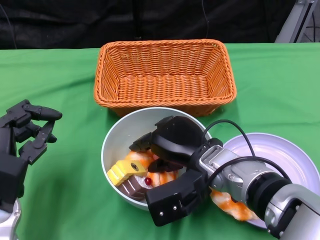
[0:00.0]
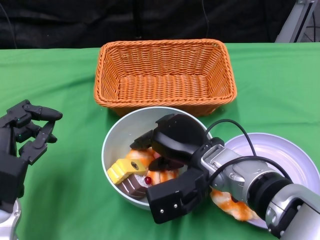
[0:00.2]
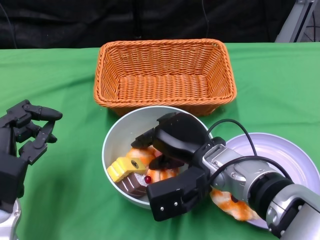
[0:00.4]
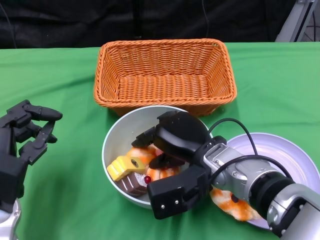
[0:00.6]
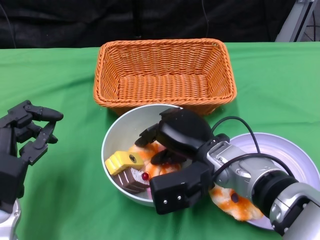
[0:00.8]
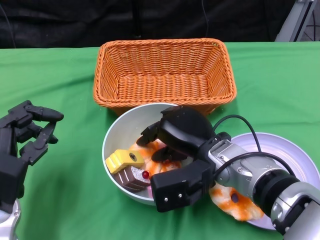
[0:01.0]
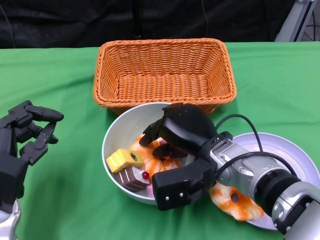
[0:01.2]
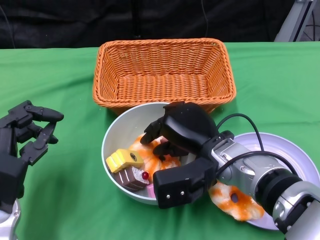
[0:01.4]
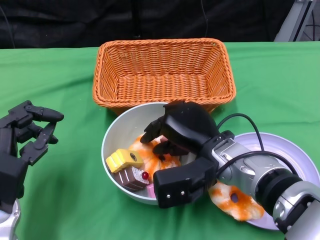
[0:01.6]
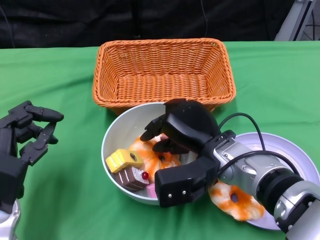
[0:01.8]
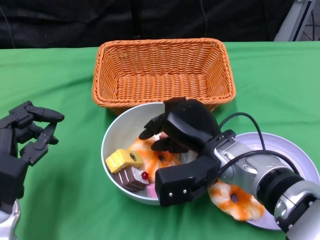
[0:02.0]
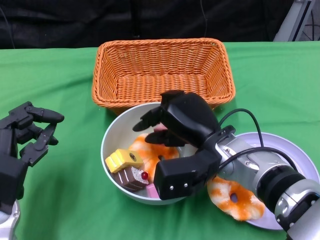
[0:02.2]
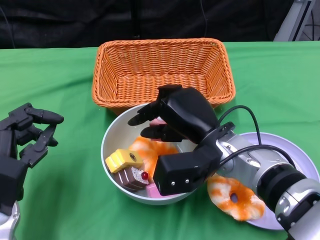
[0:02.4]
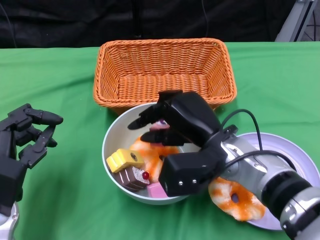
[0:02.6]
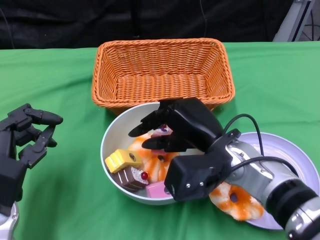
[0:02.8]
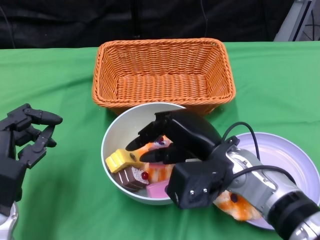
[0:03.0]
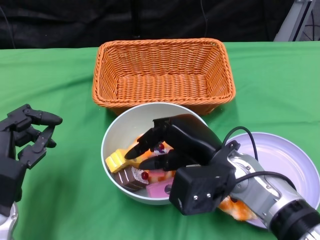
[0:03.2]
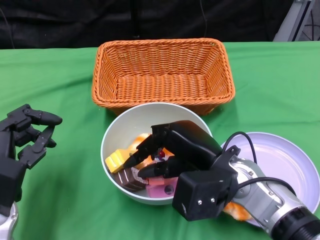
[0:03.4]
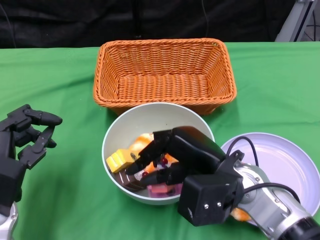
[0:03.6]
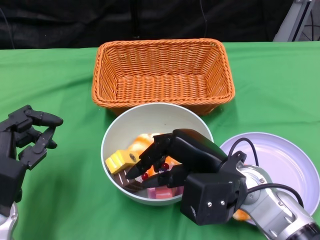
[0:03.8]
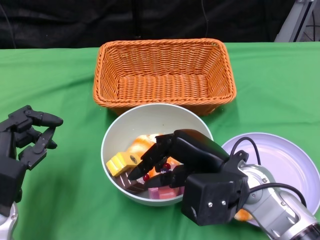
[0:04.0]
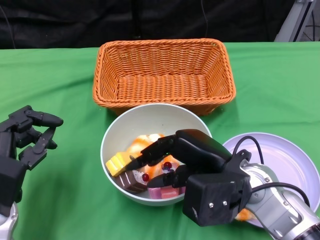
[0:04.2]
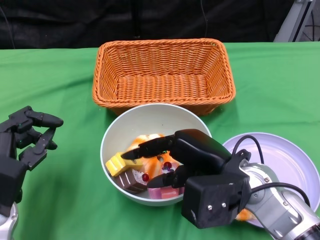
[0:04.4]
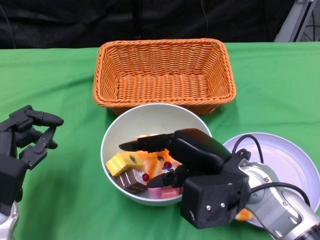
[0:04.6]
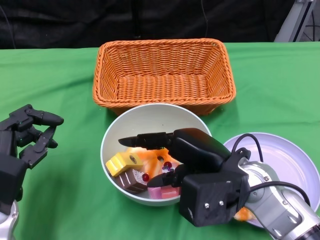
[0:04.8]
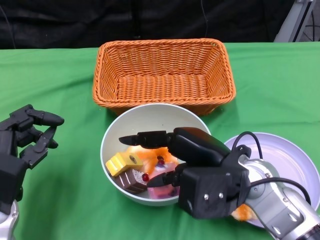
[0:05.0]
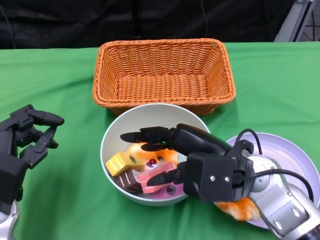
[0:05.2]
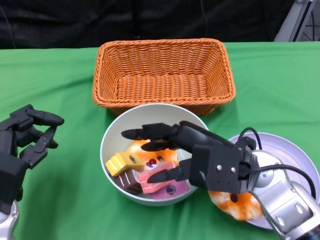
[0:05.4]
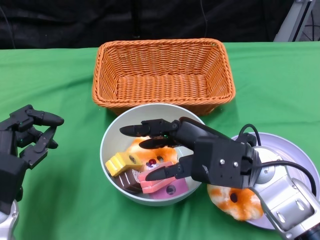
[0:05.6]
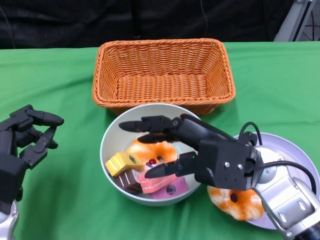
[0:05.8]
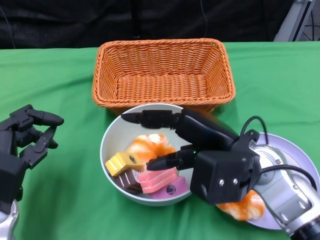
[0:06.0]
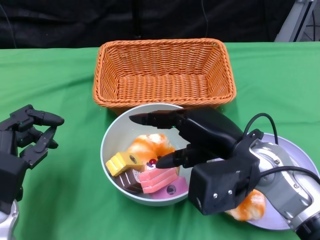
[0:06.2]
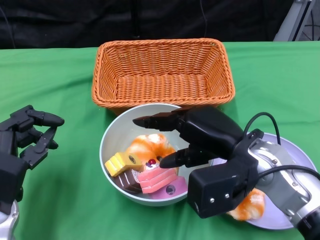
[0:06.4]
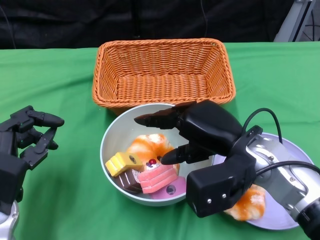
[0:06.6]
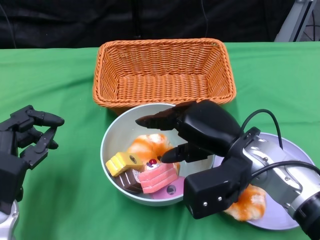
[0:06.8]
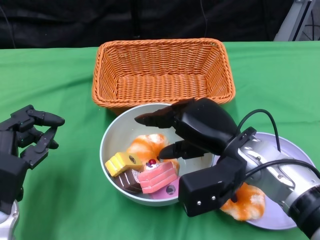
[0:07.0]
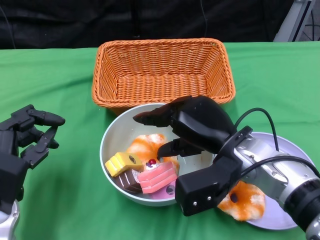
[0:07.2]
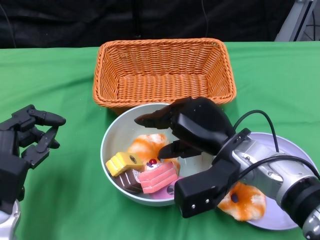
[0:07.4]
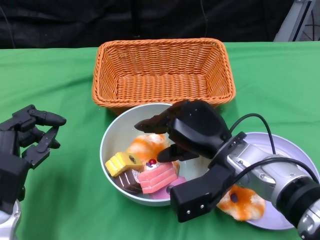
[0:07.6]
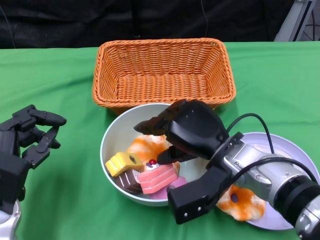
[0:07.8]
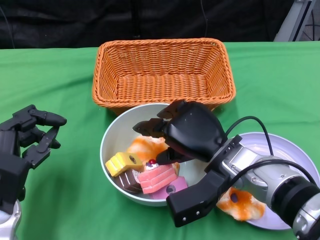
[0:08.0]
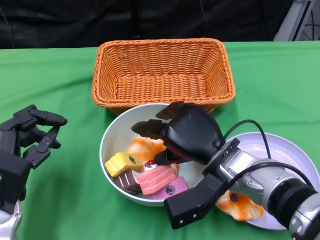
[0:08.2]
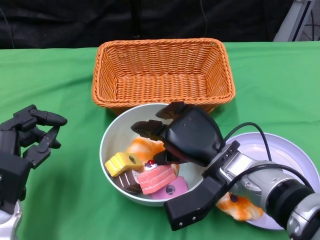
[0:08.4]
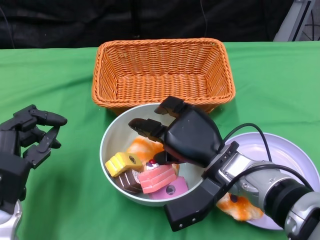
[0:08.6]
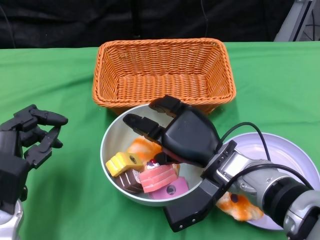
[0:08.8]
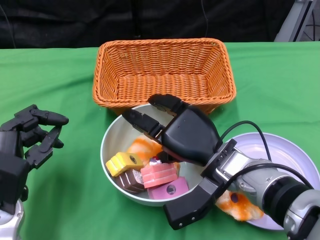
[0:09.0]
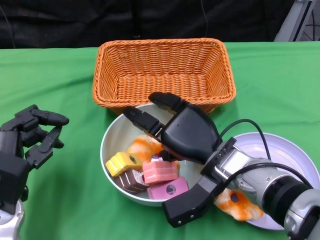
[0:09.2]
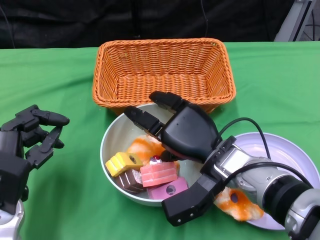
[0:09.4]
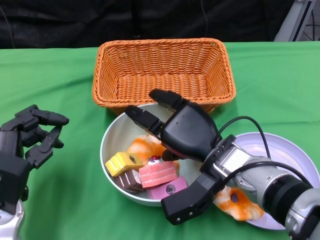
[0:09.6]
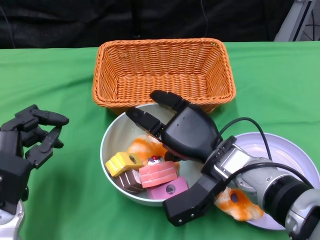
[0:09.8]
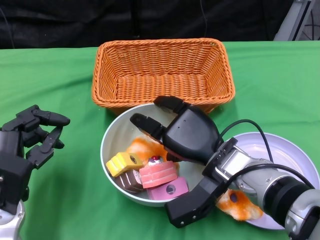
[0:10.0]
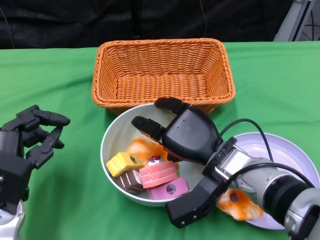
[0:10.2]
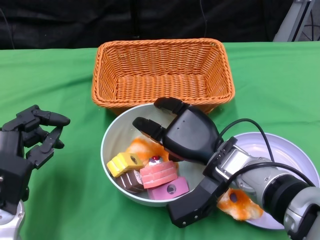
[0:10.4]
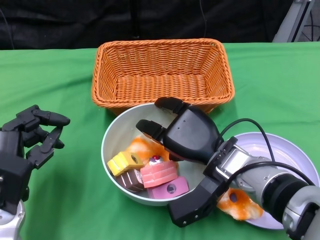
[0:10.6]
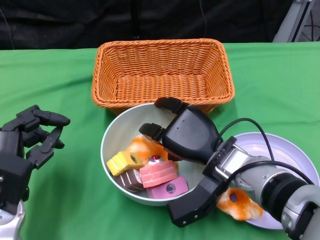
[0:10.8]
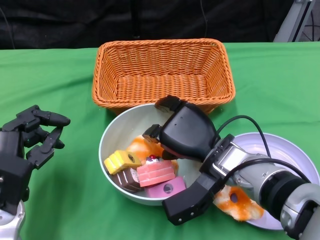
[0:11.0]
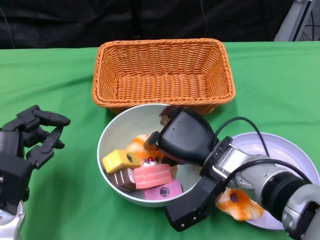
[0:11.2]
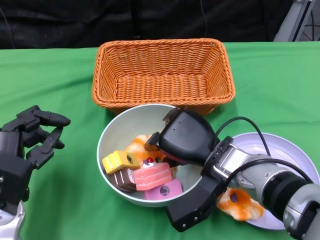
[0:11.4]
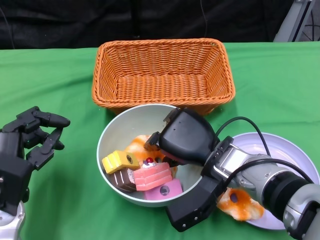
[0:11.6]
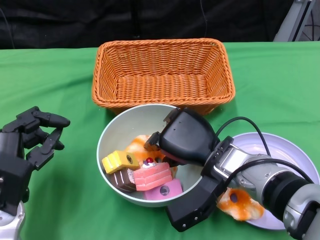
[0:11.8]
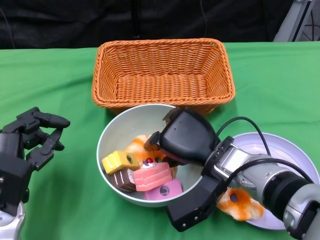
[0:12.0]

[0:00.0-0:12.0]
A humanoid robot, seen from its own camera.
0:00.0 to 0:01.6: There are only small adjustments of the hands.
0:03.0 to 0:04.4: There are only small adjustments of the hands.
0:04.4 to 0:06.0: The hands stay close to where they were, moving slightly.
0:06.0 to 0:07.6: The right hand shifts some 5 cm downward.
0:07.6 to 0:09.0: The hands stay close to where they were, moving slightly.
0:09.0 to 0:12.0: The hands stay close to where they were, moving slightly.

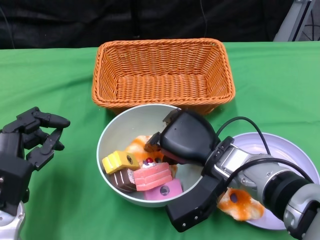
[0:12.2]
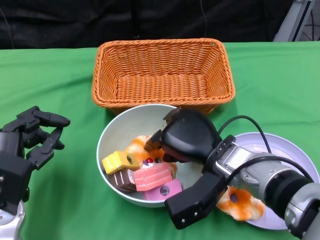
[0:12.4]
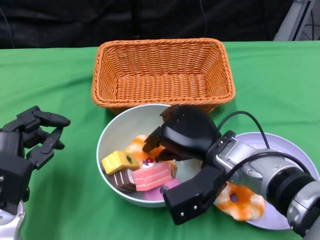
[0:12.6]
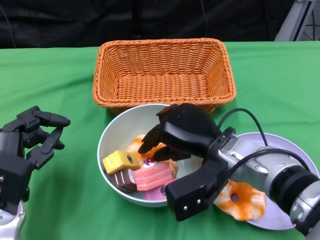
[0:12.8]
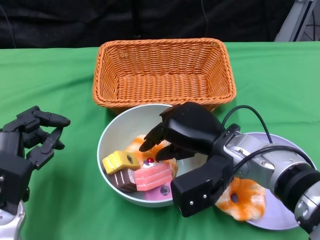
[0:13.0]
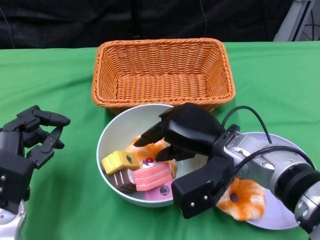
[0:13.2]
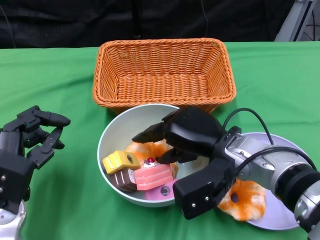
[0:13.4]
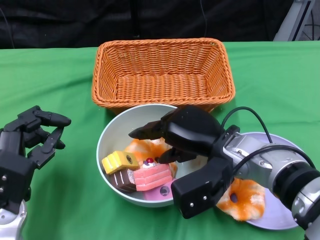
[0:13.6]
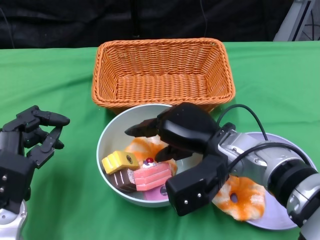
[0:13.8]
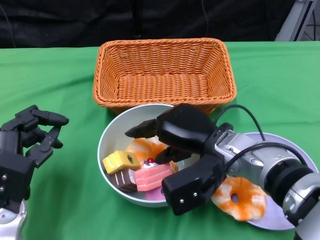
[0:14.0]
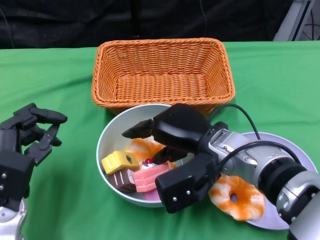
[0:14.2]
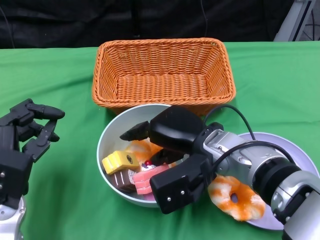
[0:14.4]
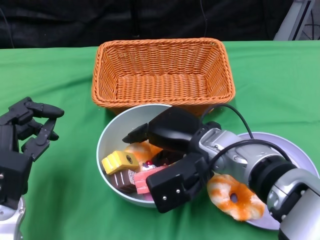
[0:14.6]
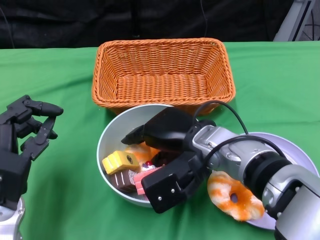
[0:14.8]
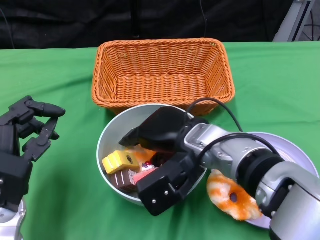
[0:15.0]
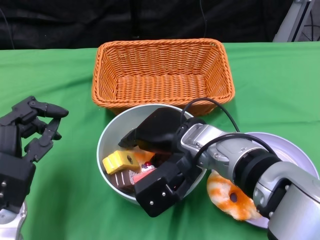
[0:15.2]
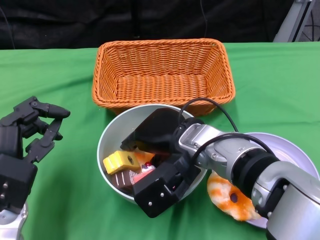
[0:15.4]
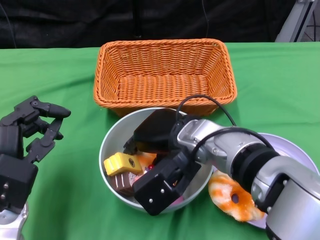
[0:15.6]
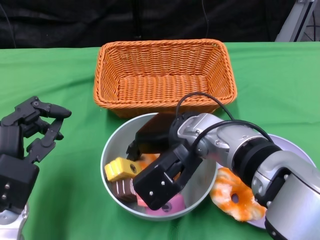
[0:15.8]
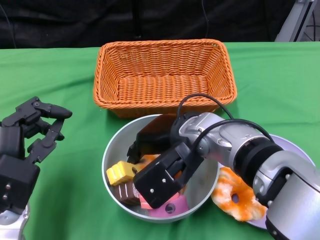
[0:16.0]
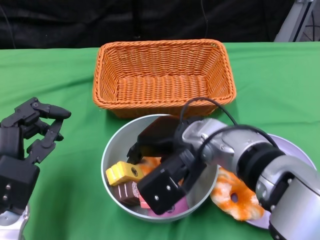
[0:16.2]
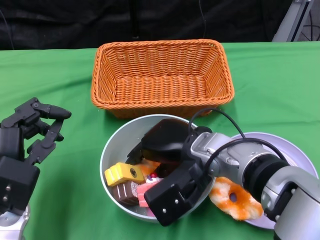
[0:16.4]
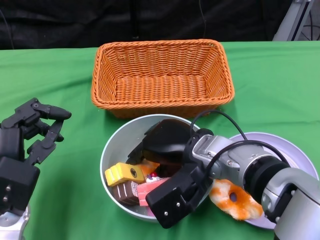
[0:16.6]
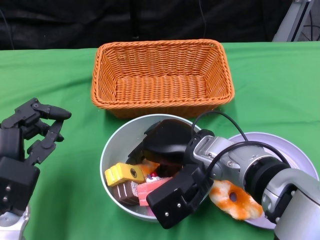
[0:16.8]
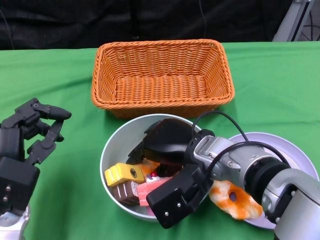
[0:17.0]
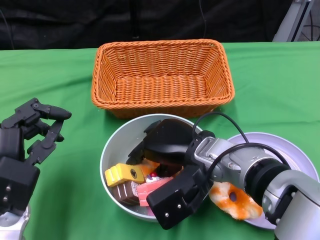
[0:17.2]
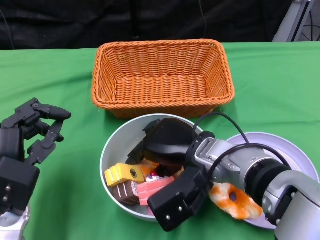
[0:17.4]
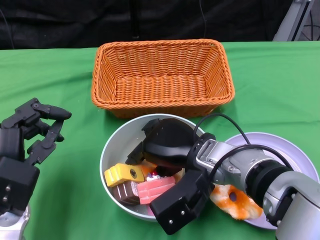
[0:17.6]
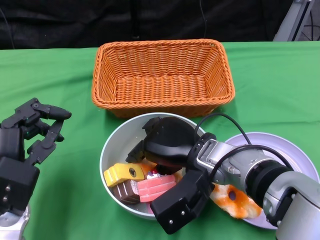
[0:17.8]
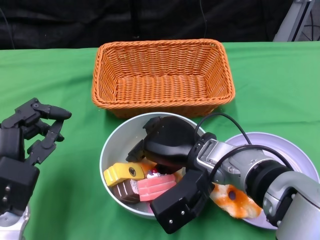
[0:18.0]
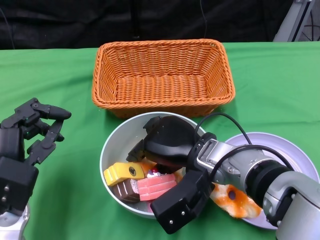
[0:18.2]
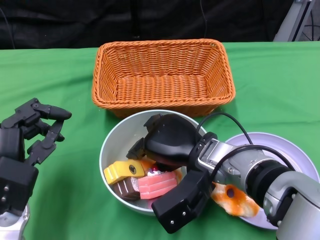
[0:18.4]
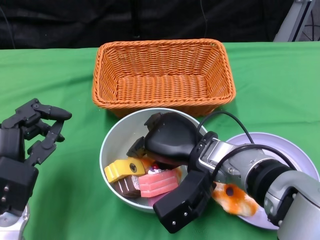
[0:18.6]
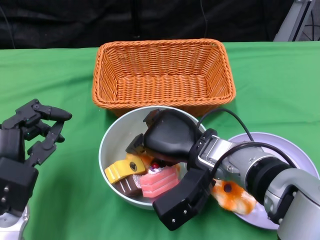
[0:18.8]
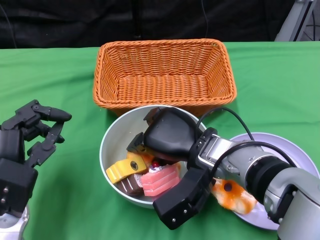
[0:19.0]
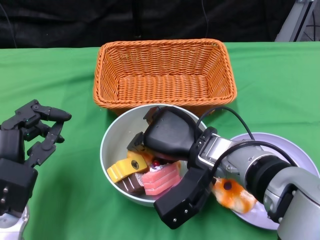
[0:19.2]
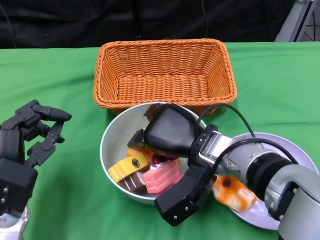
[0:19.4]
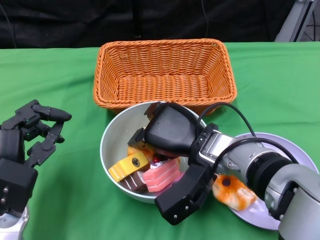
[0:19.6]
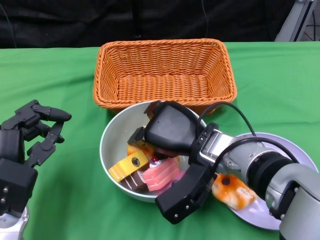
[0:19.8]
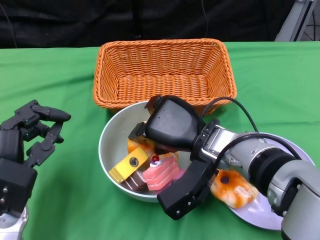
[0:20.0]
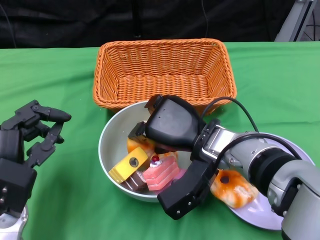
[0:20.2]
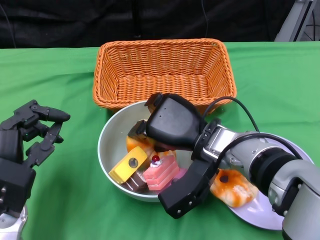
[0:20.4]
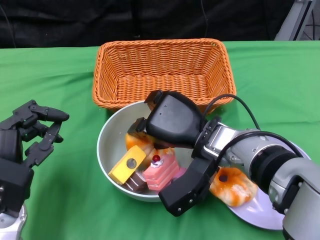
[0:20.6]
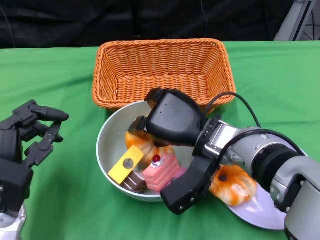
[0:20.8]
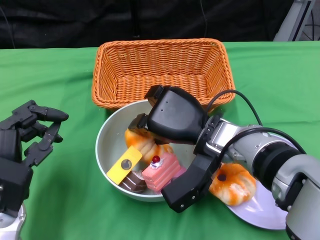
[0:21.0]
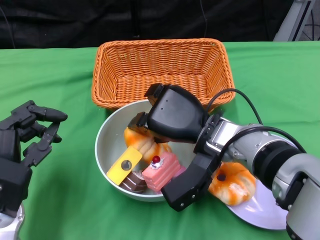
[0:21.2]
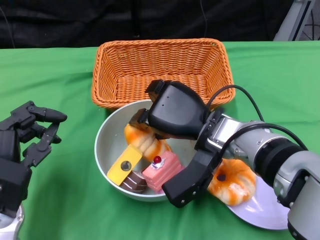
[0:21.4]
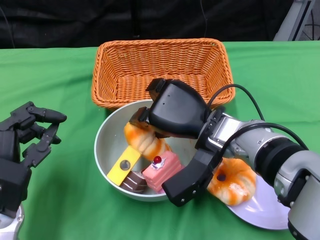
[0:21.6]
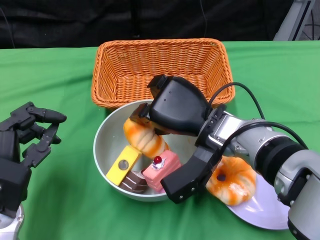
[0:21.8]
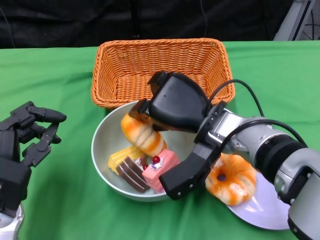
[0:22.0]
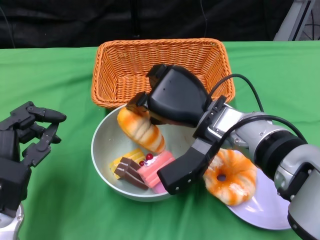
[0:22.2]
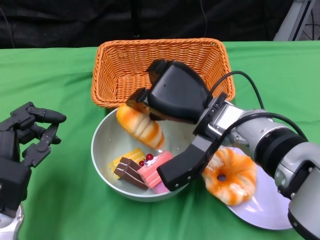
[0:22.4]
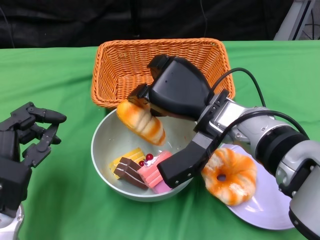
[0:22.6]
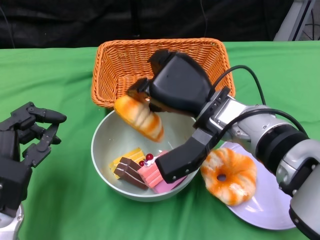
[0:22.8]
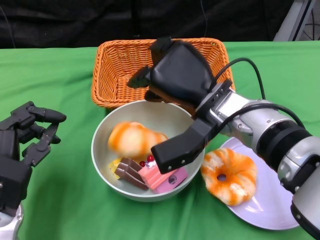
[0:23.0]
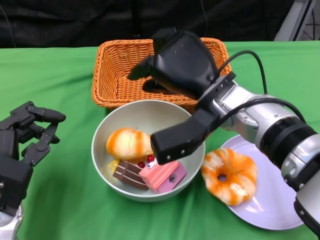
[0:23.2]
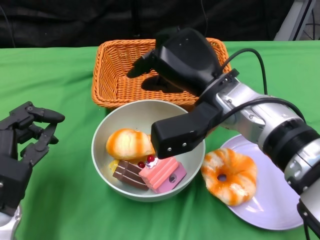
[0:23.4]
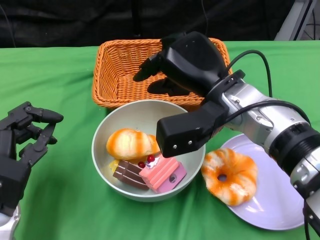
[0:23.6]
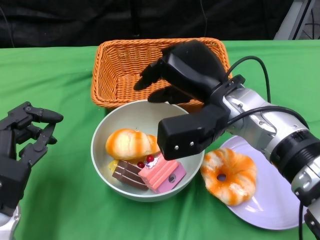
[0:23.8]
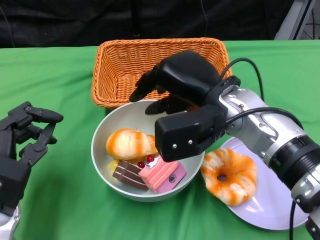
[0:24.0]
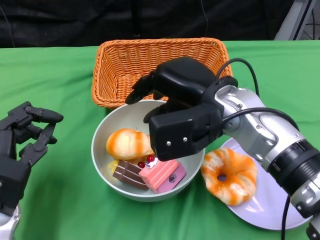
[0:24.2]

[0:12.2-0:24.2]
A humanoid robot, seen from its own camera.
0:16.6 to 0:18.2: The hands make only small movements.
